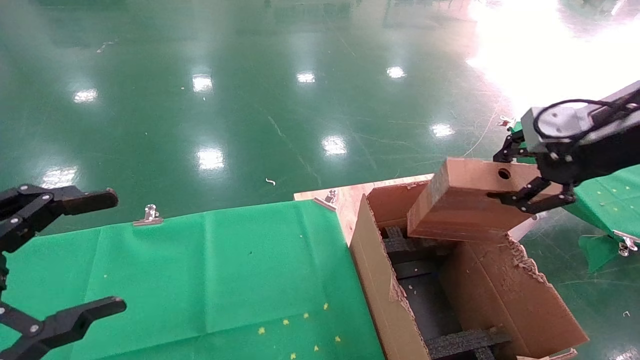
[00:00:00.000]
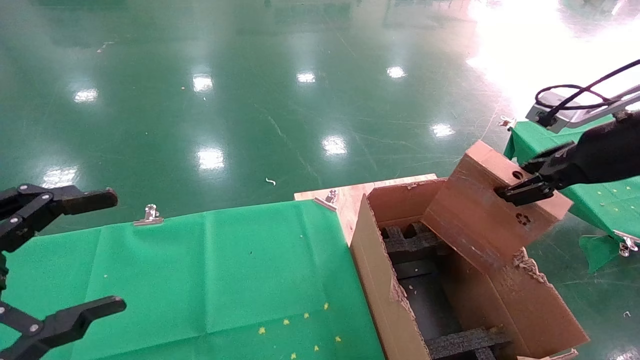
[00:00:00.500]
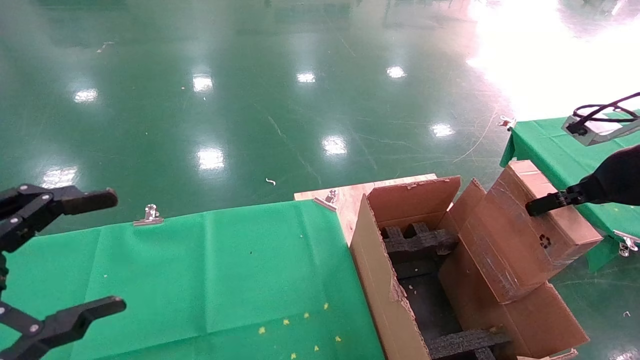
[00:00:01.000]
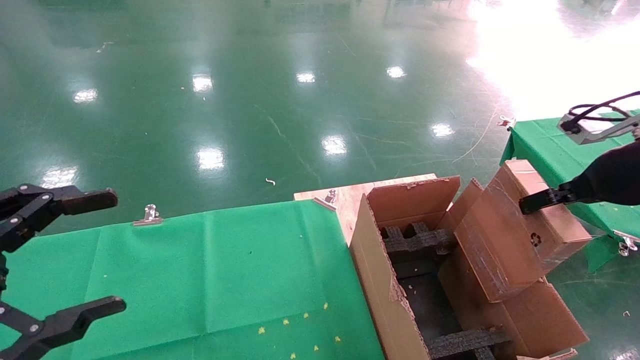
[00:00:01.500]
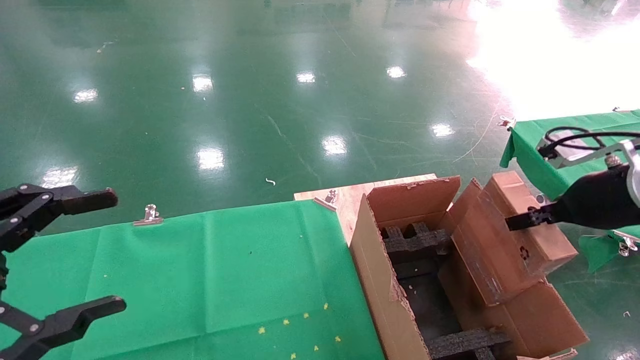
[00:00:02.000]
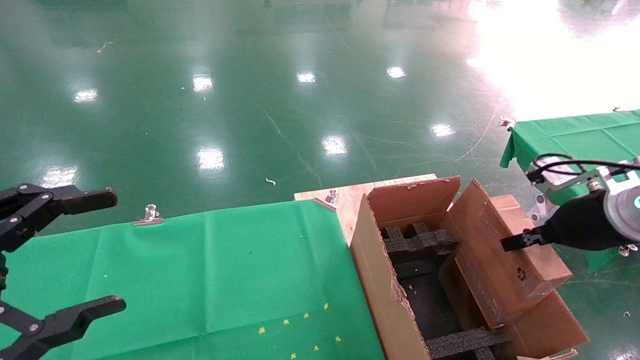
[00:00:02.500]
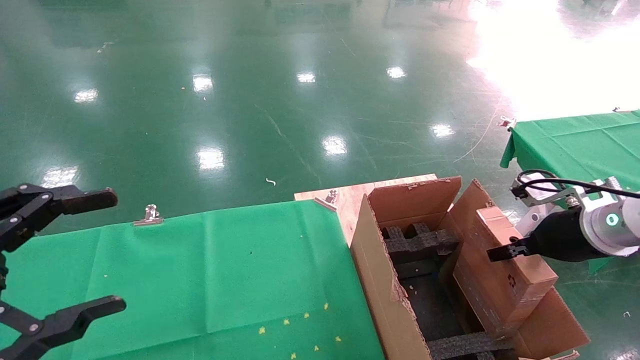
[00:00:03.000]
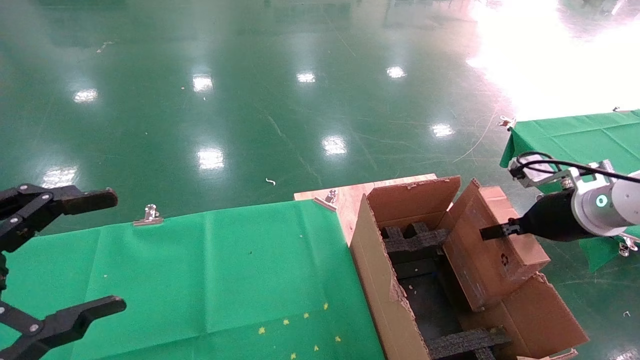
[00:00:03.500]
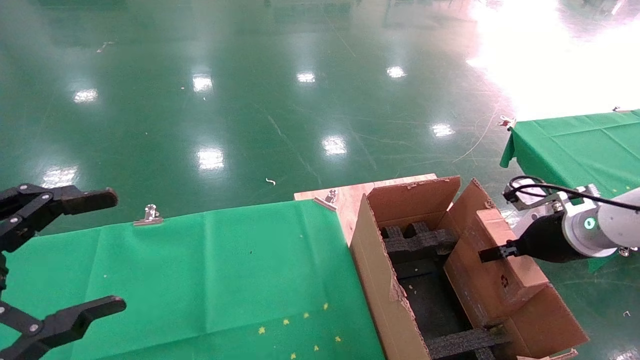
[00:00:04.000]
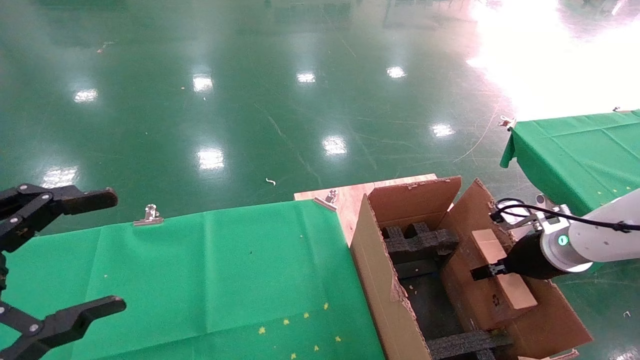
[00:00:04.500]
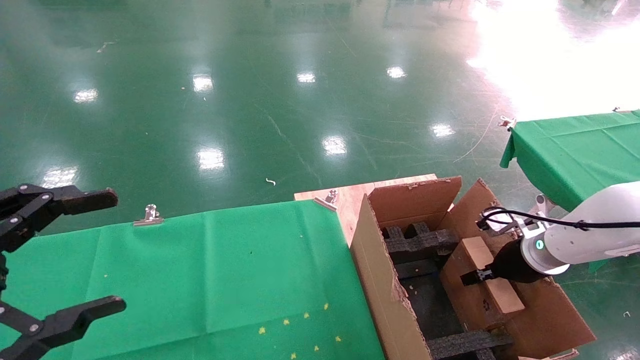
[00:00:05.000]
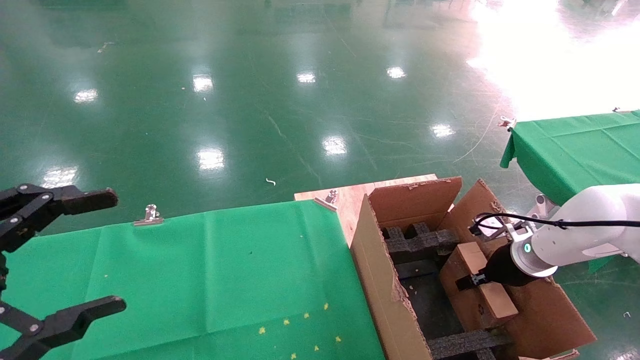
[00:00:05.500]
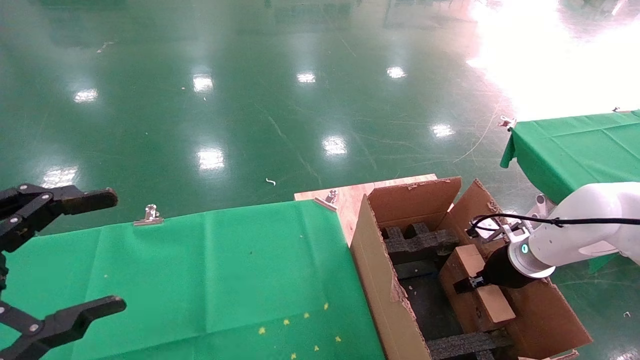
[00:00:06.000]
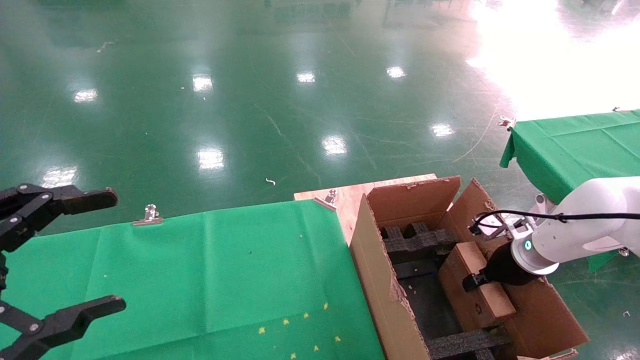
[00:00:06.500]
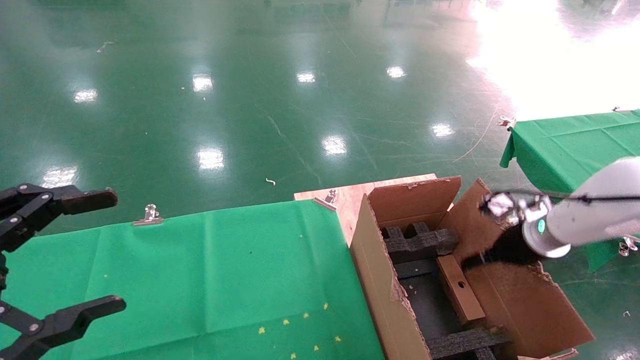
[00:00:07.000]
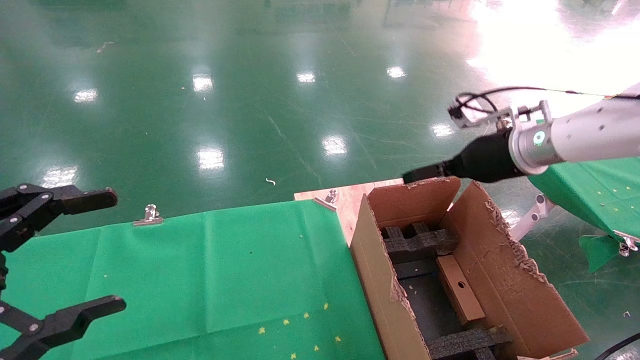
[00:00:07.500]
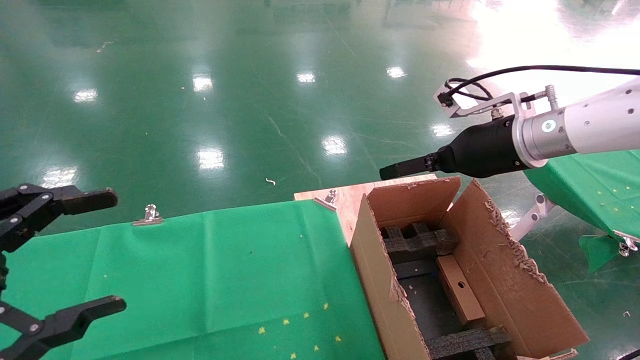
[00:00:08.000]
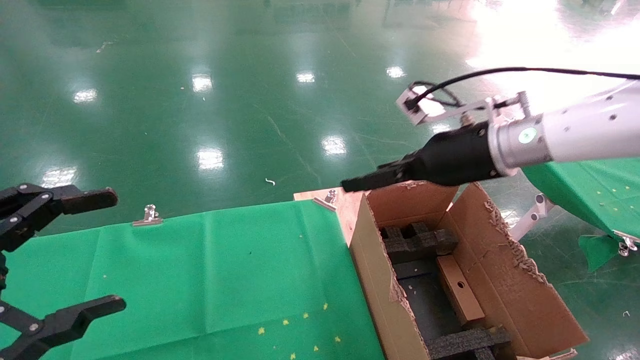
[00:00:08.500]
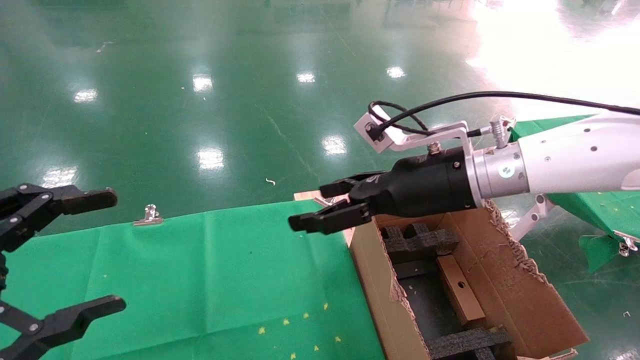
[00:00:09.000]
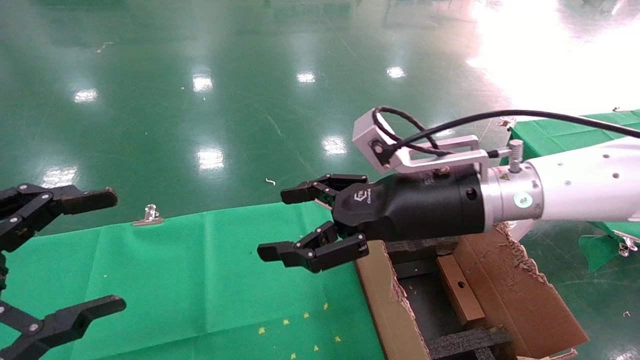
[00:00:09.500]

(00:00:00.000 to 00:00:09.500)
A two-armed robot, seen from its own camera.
Task of the whole recording: using a robotic arm to pick up a cardboard box and palace it the carton.
Step, 00:00:00.000 - 00:00:08.500: Place the mouse and the power cord paper box into the container.
00:00:00.000 - 00:00:02.000: The right gripper travels downward by roughly 10 cm.
00:00:02.000 - 00:00:04.000: The right gripper moves downward and forward, approximately 10 cm.
00:00:04.000 - 00:00:05.500: The right gripper goes roughly 10 cm downward and forward.
00:00:05.500 - 00:00:07.500: The right gripper heads upward, covering some 20 cm, and opens.
00:00:07.500 - 00:00:09.500: The right gripper moves to the left and backward, approximately 20 cm.
